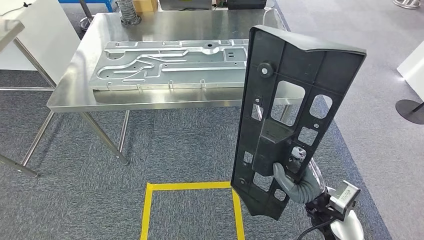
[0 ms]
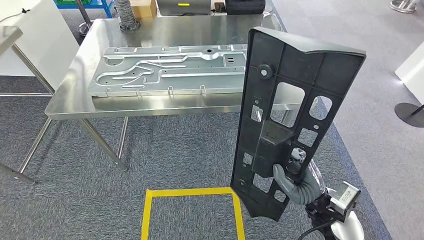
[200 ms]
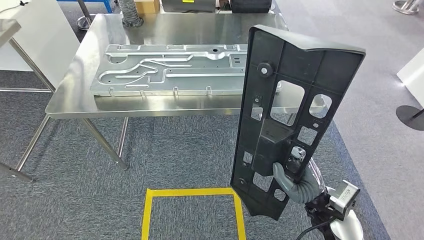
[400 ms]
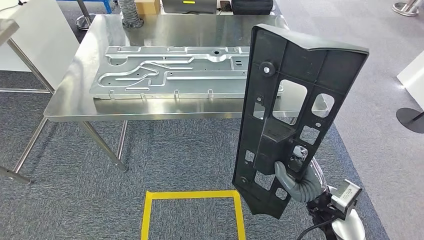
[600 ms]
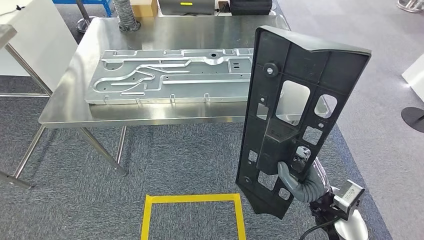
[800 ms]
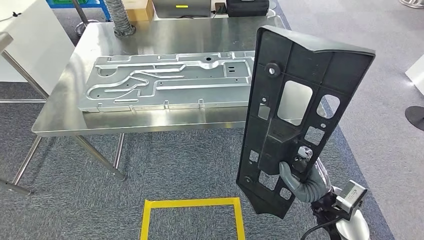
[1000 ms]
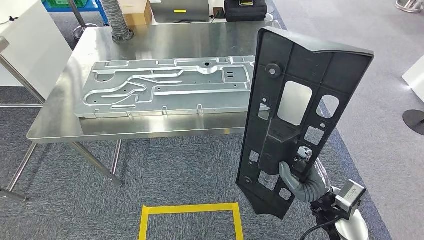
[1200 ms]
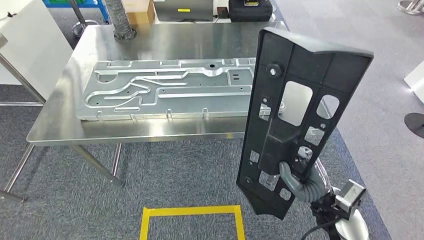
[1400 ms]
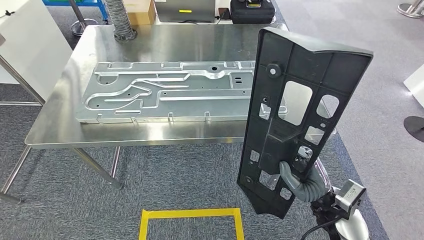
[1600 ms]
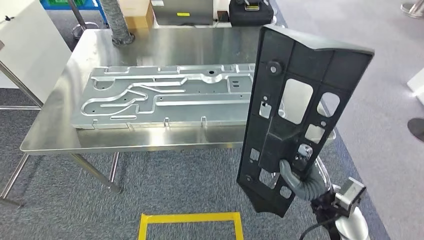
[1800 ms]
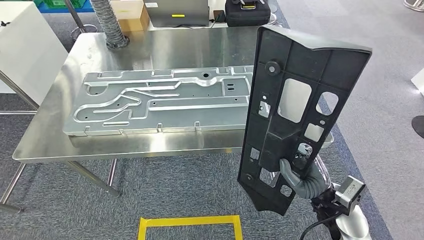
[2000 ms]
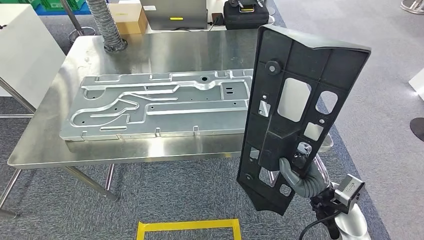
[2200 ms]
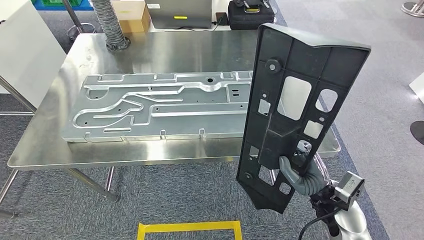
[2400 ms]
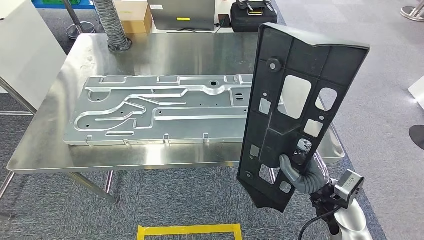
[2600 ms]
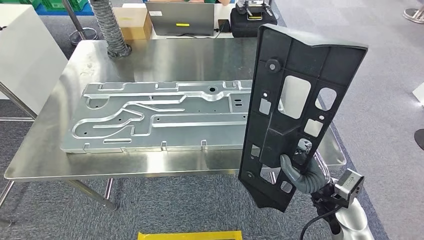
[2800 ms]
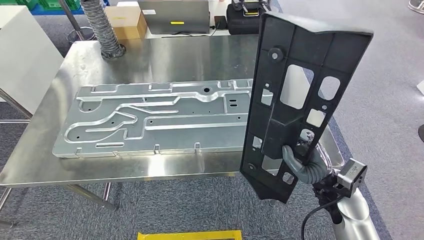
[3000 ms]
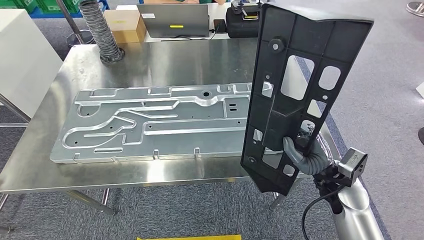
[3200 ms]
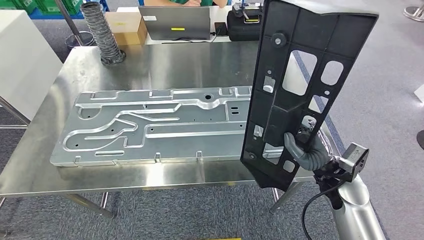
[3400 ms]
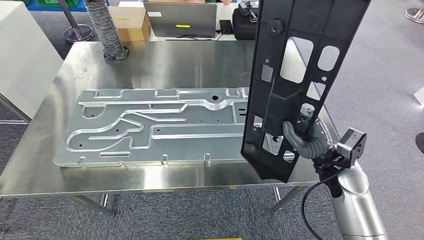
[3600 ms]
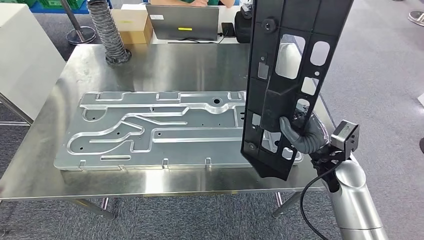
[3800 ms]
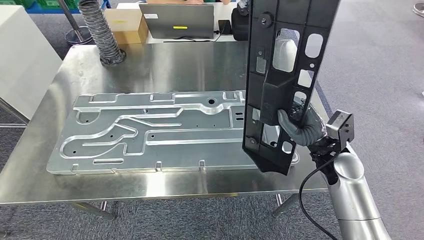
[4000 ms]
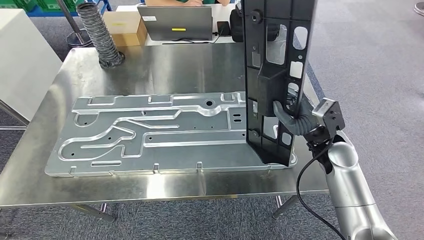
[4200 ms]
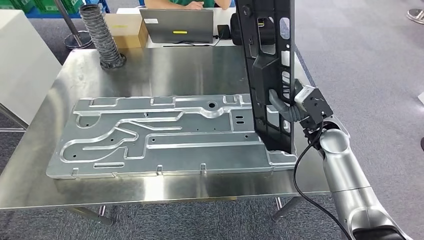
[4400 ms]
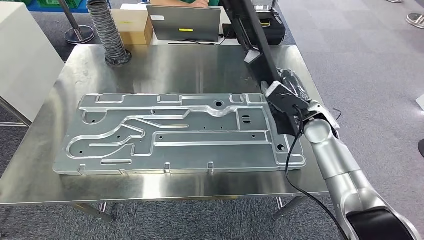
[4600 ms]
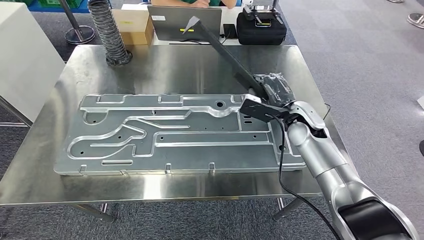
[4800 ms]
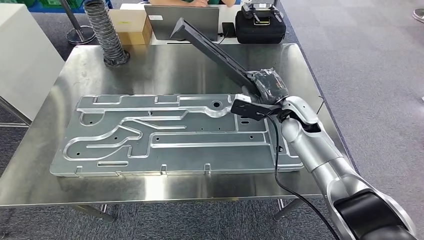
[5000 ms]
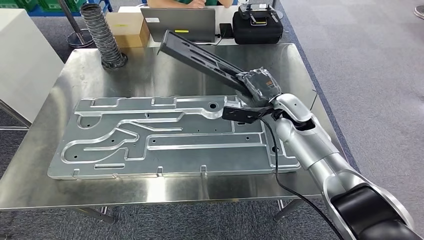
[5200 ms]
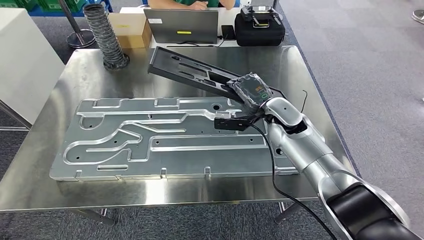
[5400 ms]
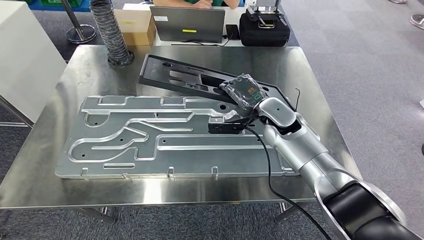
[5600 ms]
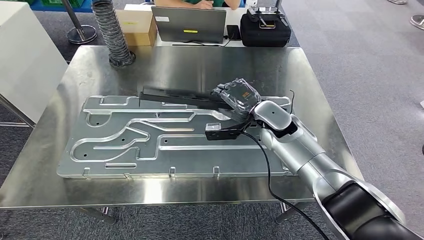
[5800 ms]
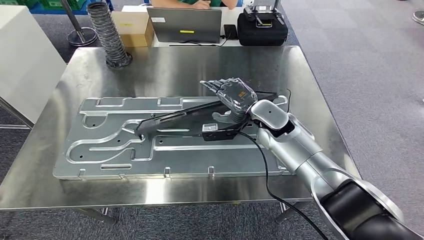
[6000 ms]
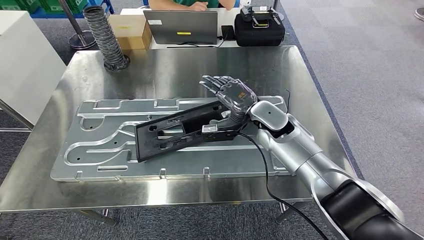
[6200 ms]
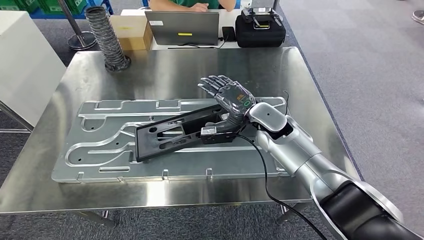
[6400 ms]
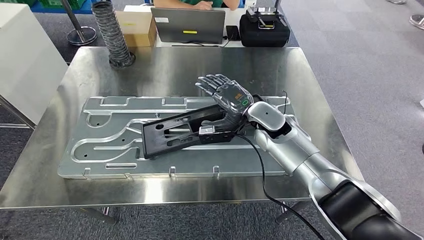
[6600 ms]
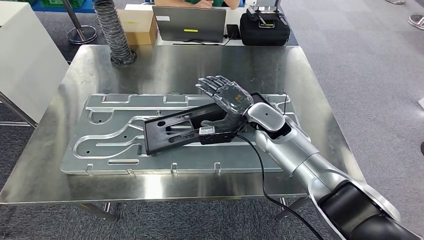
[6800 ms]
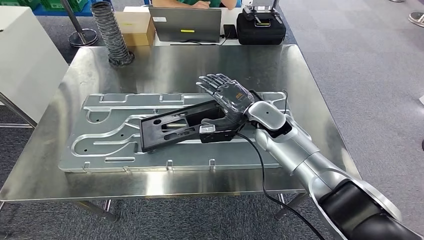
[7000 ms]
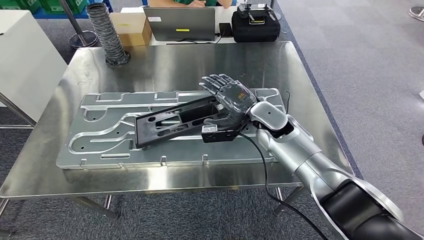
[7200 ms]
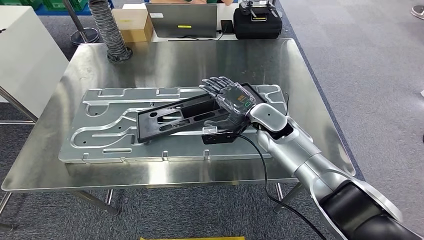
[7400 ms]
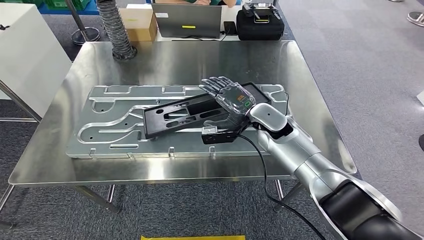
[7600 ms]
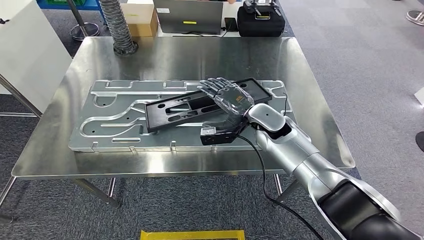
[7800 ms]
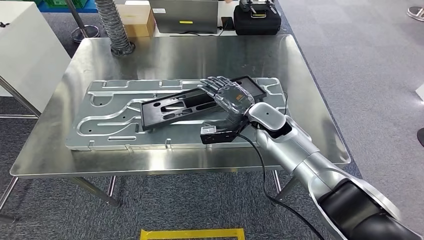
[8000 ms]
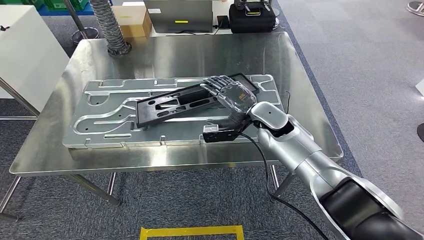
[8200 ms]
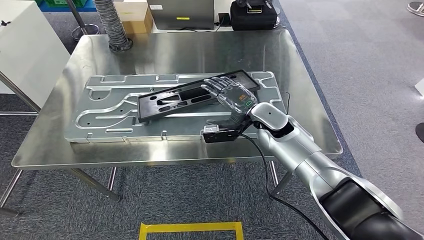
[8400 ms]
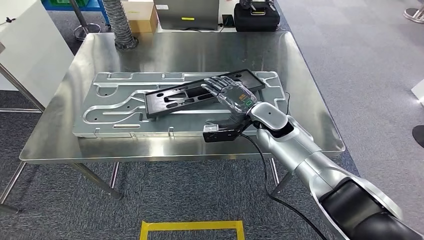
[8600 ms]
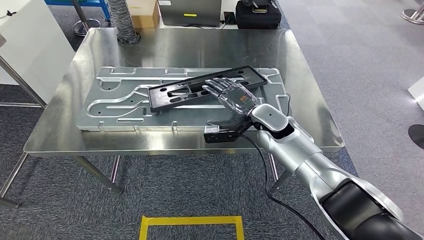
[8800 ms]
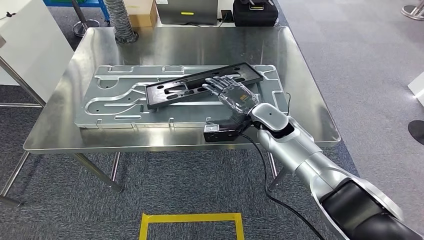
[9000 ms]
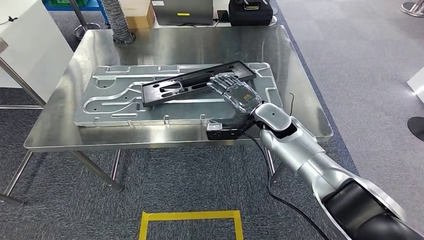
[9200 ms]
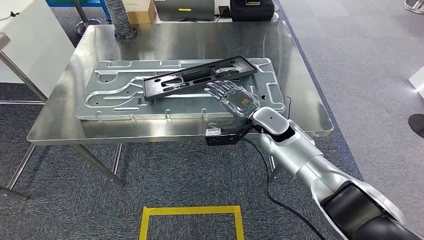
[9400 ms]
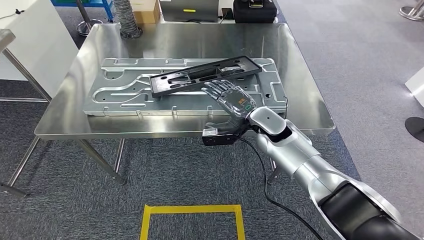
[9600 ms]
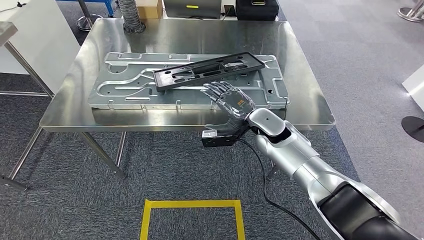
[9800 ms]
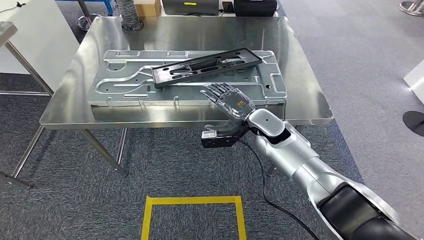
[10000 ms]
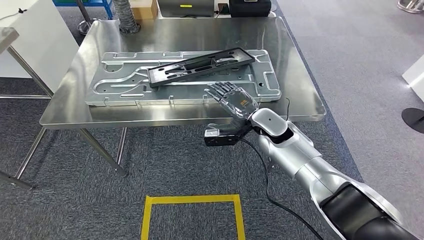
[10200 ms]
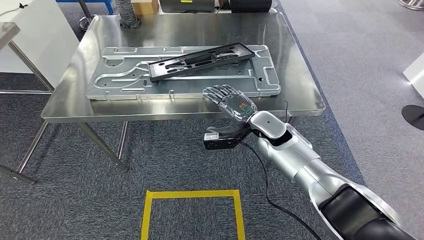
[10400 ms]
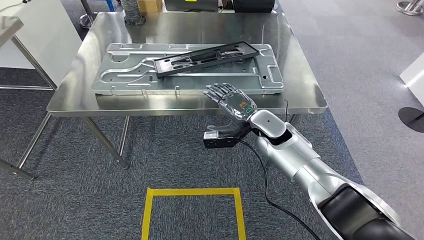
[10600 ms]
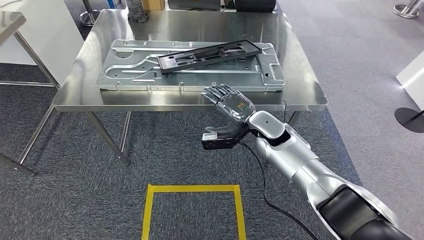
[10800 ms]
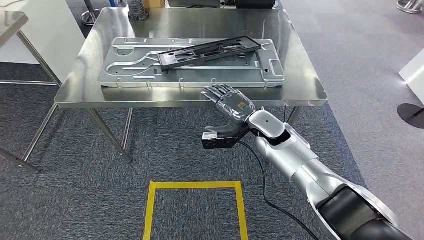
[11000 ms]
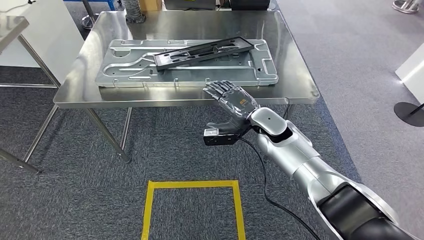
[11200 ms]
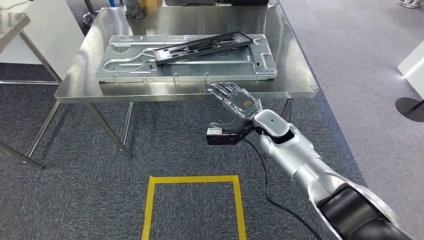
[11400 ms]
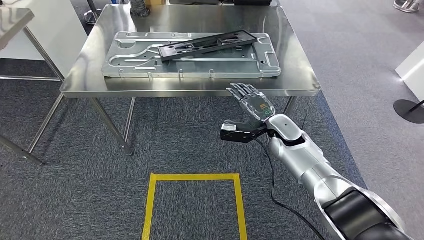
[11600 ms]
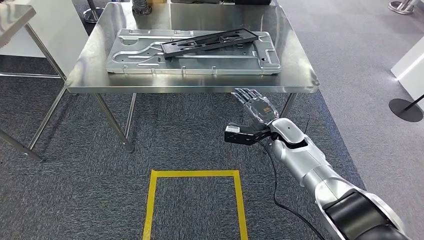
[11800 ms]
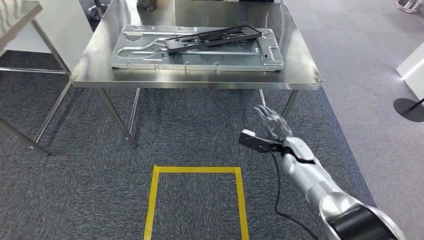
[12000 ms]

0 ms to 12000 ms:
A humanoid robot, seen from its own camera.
Step, 5800 ms to 9000 ms: Insert the large material into the corresponding slot on the workbench.

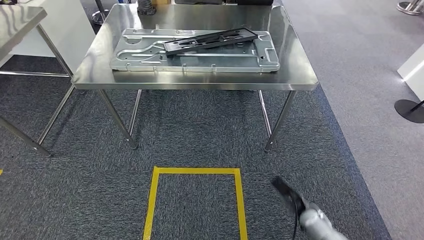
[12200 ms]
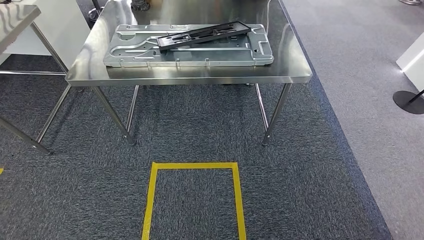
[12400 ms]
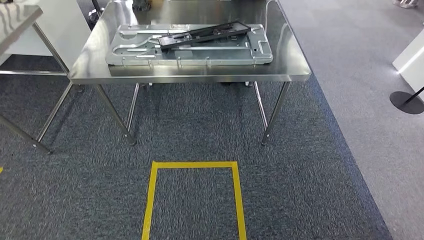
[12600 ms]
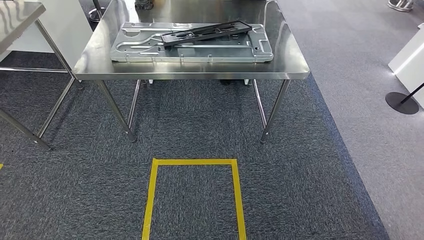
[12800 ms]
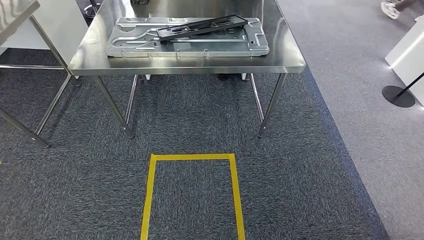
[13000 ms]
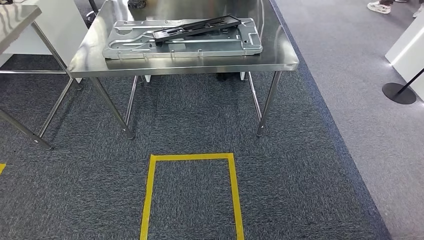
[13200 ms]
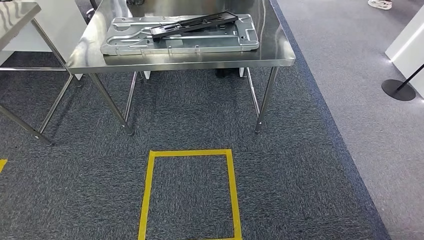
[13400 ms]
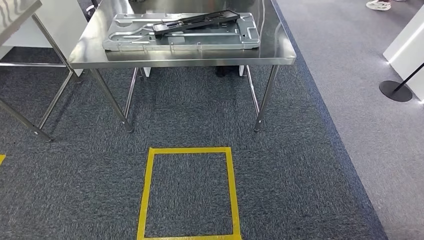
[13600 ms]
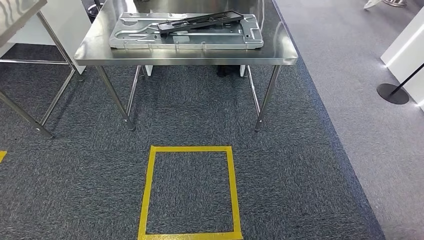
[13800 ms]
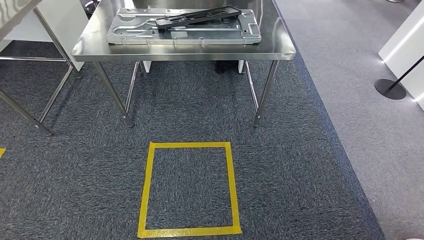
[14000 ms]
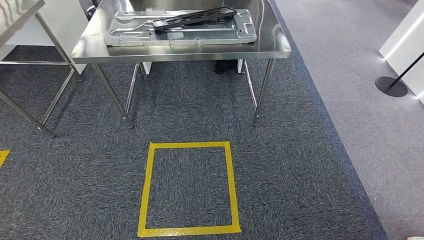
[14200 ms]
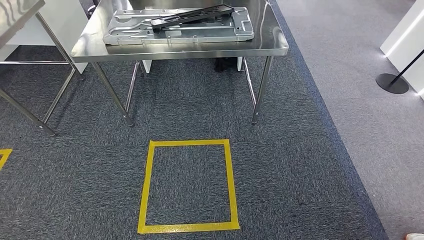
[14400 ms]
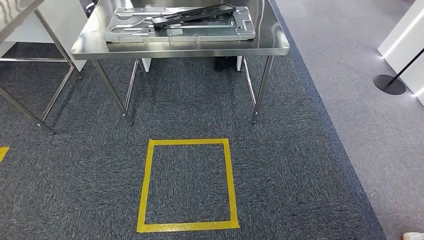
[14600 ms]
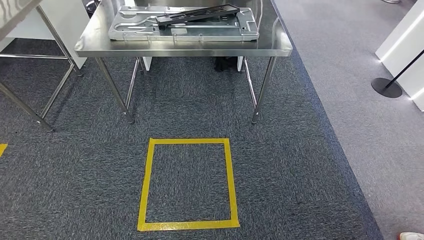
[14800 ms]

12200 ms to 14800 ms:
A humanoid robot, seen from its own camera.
Step, 12200 ms to 14800 ms: Move to the initial position of the shelf.
